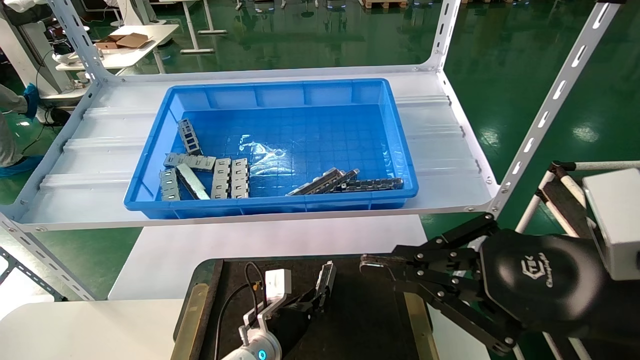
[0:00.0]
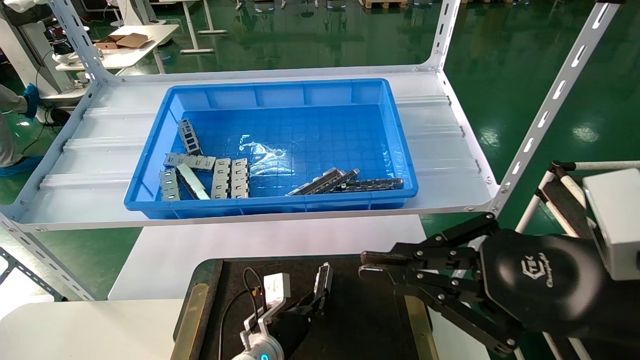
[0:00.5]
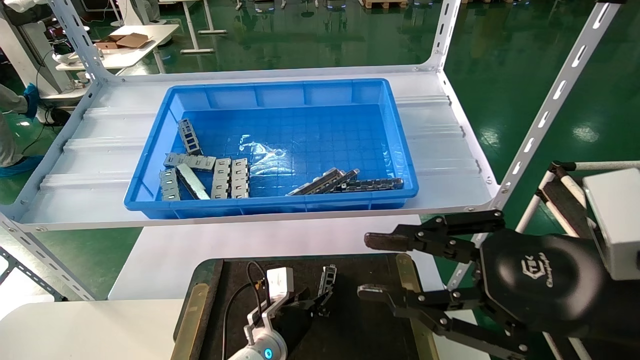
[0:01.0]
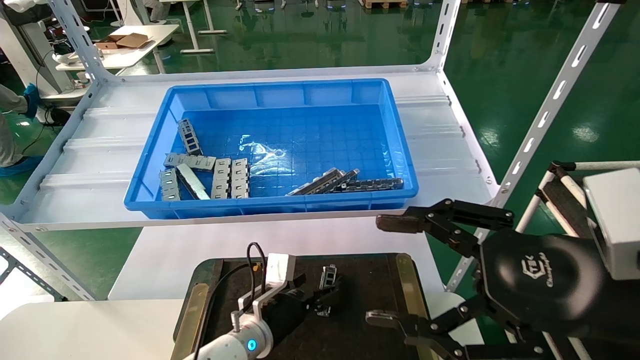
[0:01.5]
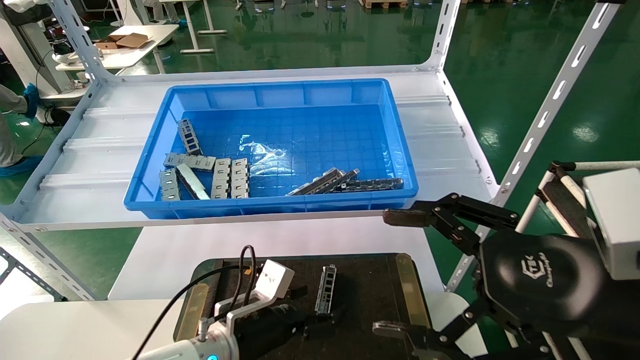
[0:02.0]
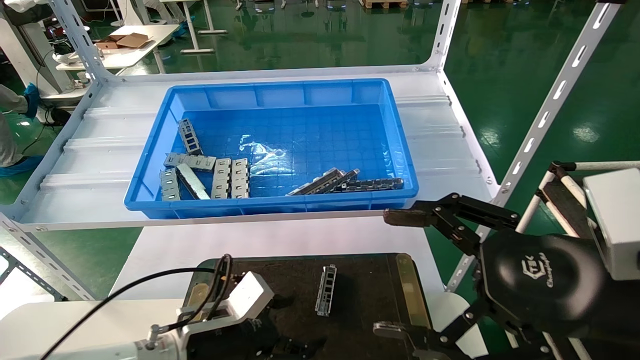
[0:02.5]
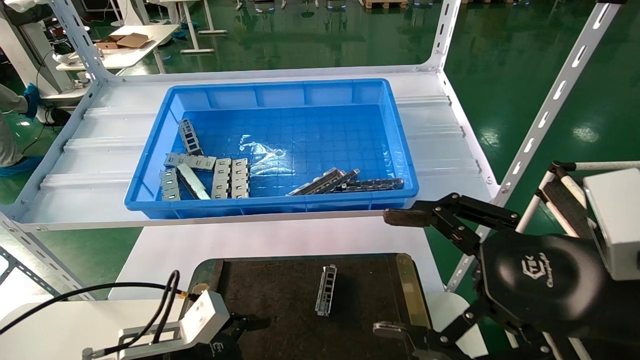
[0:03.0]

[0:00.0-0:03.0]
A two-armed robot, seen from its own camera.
Task of the whole recording: Grasp the part with one hand and place it on the black container.
0:00.0 to 0:01.5: The left gripper opens, while the right gripper opens up.
0:01.5 to 0:03.0: The left gripper is displaced to the left, backward and upward by roughly 20 cm.
